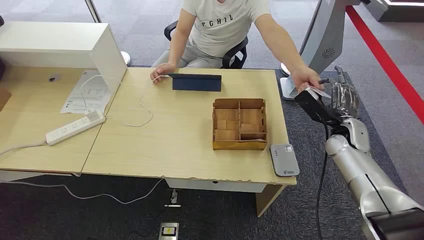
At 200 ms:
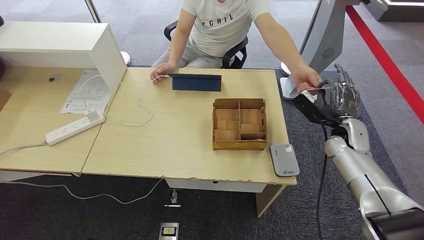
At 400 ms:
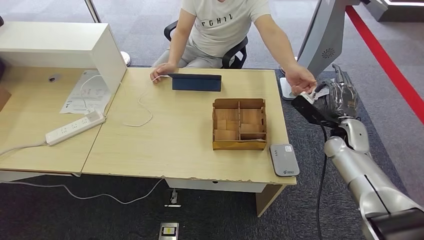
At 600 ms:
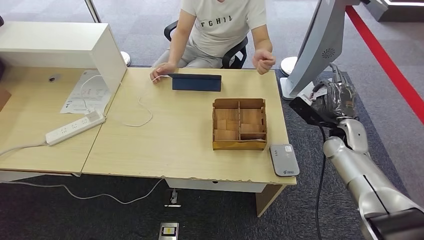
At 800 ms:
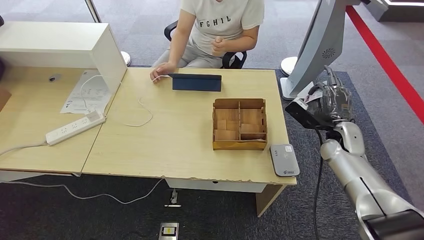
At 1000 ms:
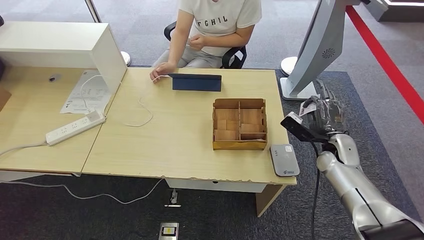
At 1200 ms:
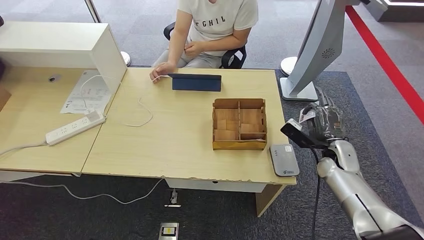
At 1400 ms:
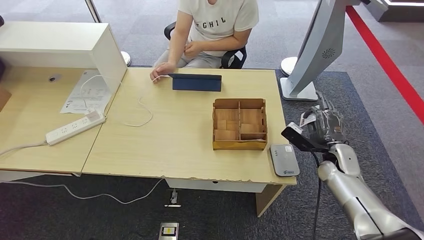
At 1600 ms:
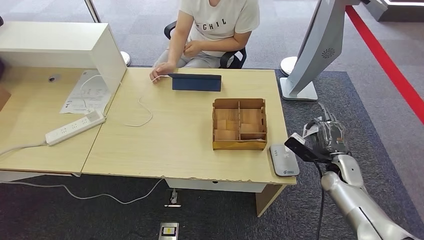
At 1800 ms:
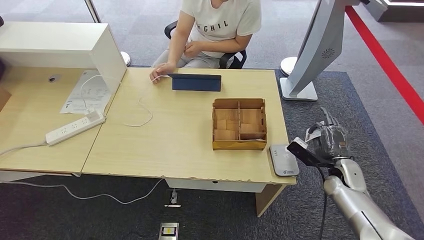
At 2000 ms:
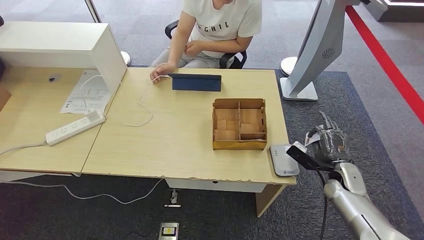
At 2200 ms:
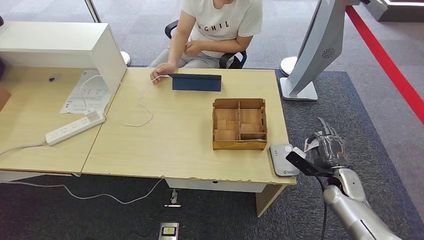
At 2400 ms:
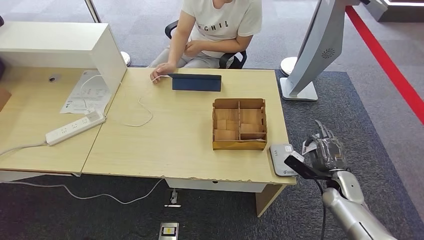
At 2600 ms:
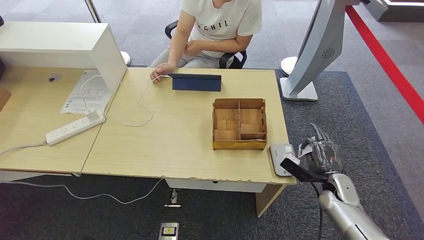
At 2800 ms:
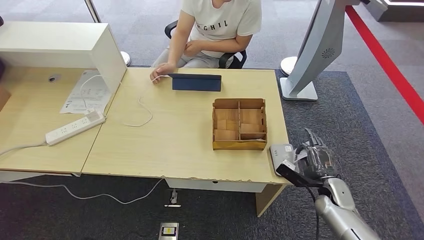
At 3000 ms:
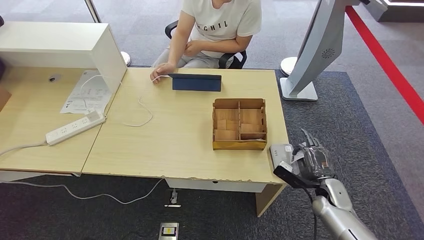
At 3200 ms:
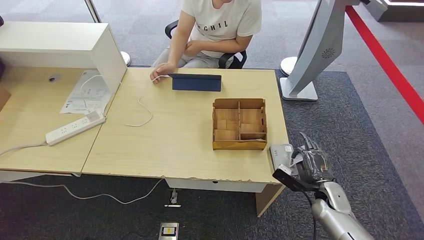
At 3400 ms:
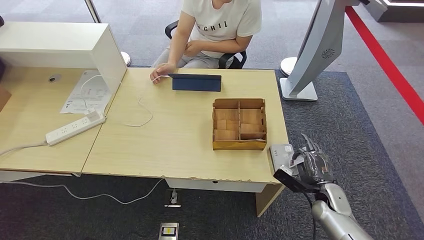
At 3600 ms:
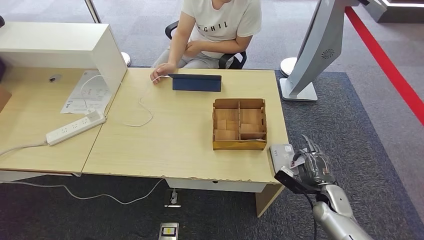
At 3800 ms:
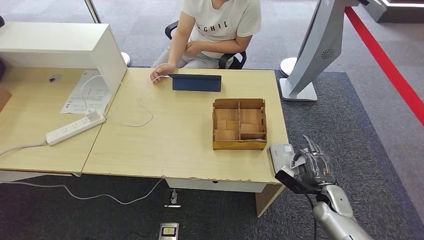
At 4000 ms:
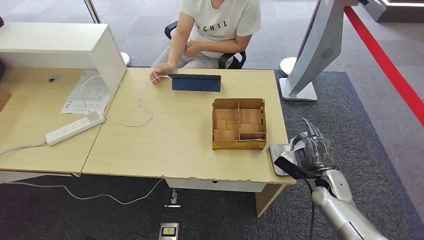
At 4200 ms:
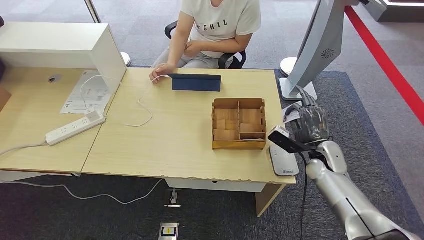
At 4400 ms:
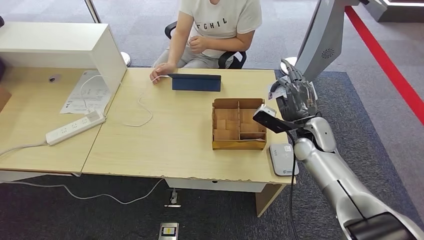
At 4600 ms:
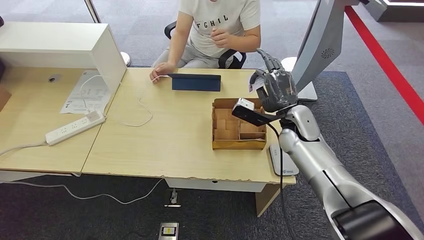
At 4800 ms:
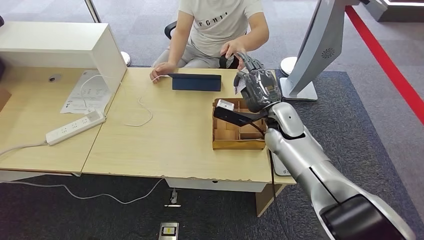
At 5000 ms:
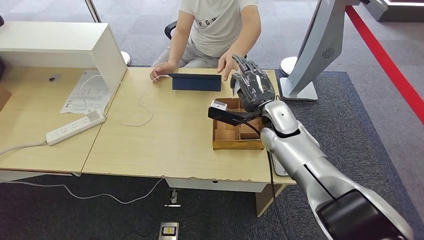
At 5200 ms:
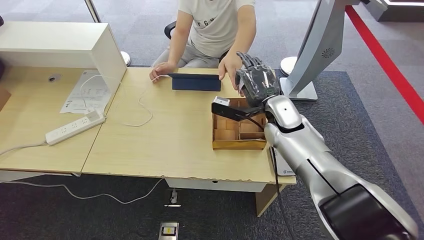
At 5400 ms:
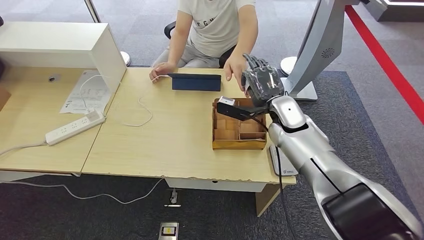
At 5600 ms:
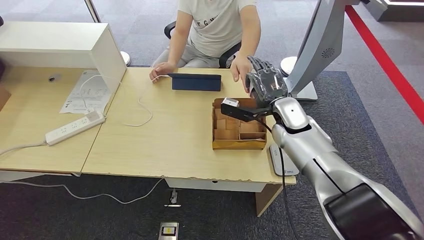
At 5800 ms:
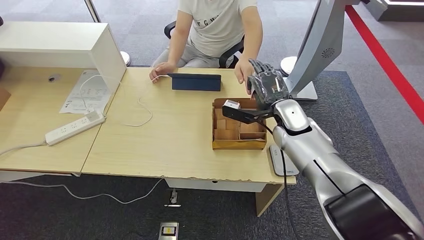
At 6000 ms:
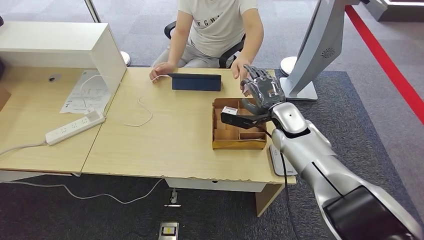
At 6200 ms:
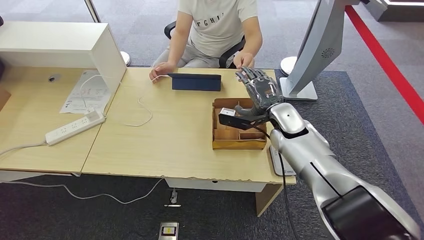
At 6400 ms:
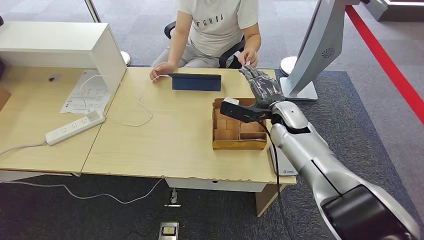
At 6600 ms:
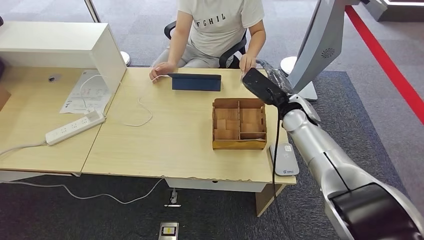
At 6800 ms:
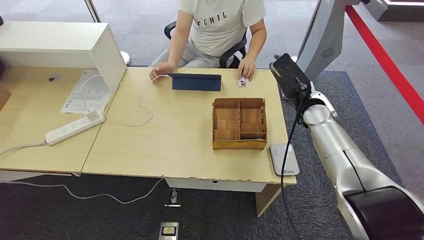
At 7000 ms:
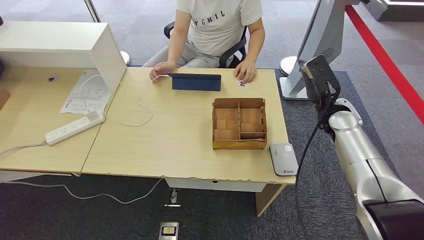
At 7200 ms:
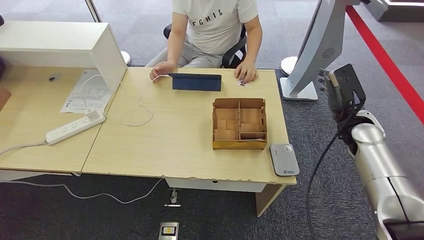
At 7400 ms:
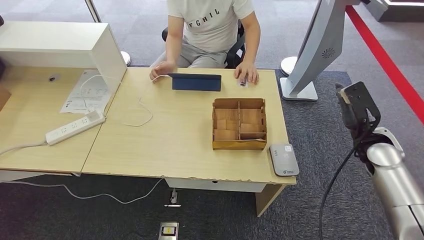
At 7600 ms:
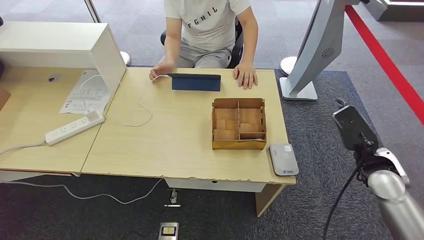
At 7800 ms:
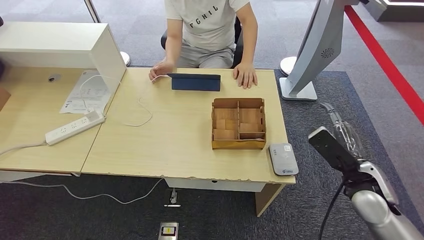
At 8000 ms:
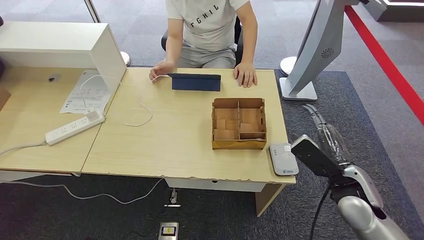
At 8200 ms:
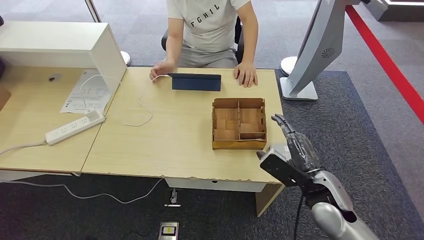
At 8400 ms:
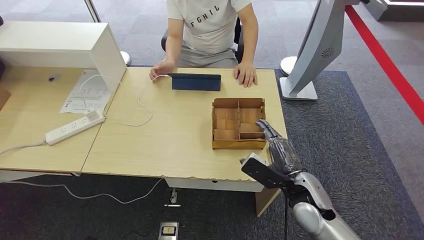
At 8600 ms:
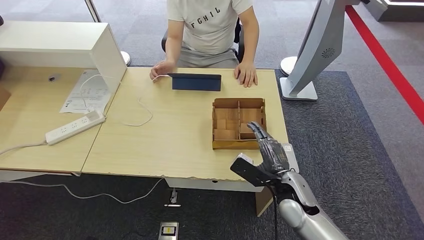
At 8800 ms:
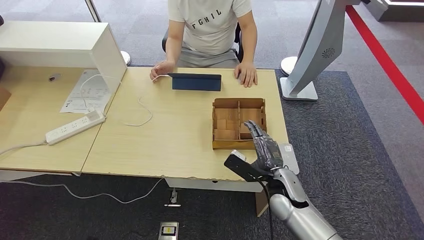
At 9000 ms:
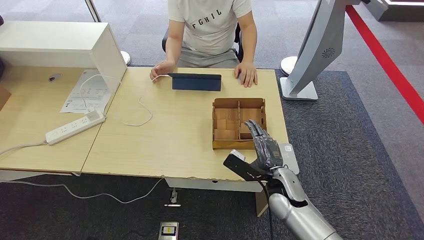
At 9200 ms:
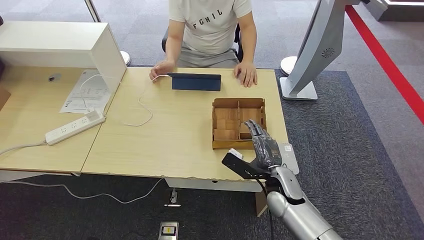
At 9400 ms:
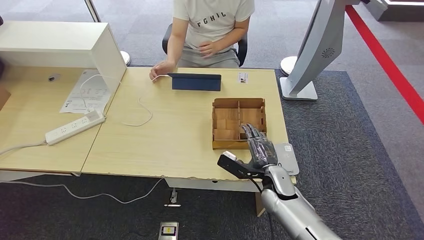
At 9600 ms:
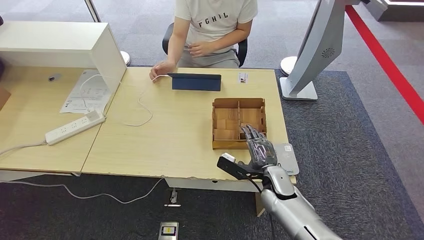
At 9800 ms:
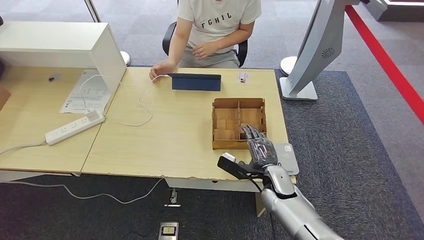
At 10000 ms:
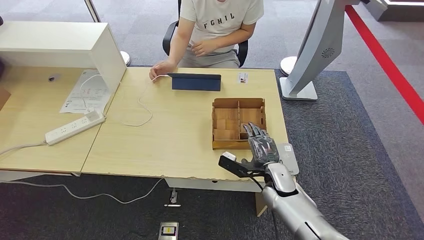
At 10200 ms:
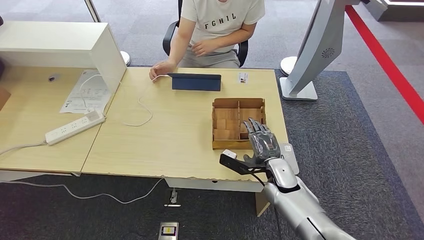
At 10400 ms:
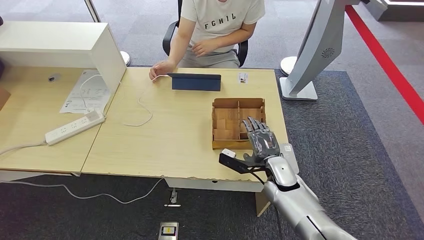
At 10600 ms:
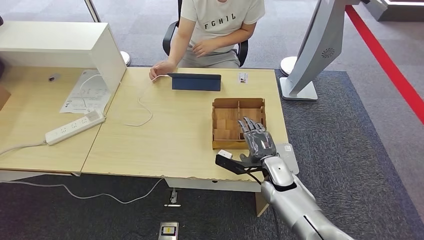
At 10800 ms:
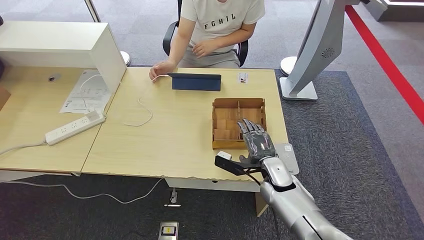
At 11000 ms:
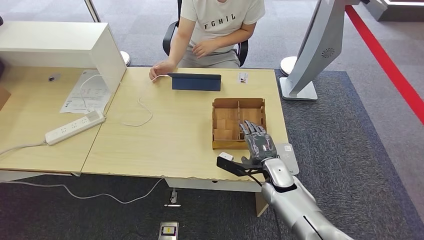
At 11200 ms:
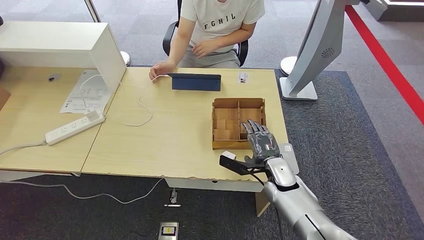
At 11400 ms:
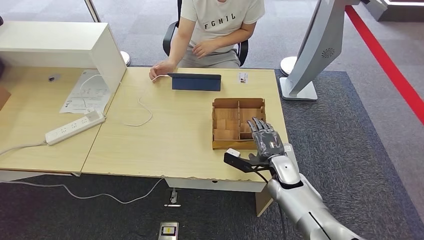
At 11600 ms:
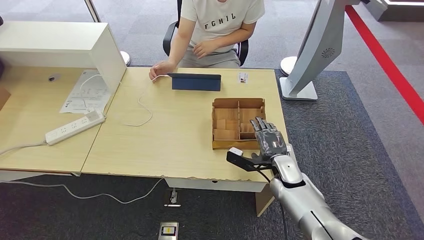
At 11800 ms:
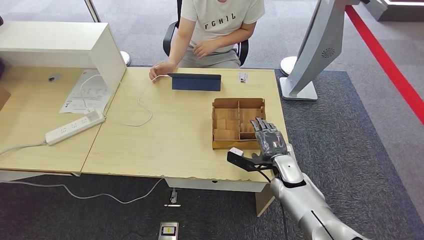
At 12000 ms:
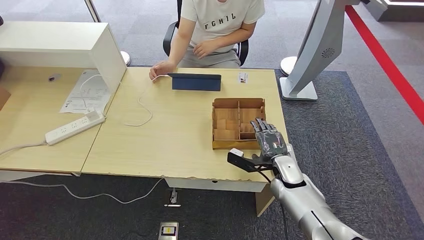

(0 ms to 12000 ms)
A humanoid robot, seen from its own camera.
Step, 0 ms - 1000 ms: Take the ID card from the person's hand.
Step, 1200 ms - 4400 ms: Place the ID card on the card reader.
Step, 4600 ms - 6600 ms: Hand the ID card to the person.
1600 ms - 3000 ms: The right hand moves downward and backward, some 10 cm.
3000 ms - 4400 ms: The right hand is displaced upward, forward and to the left by about 20 cm.
4400 ms - 6000 ms: The right hand goes about 5 cm to the left.
6000 ms - 7600 ms: The right hand shifts approximately 20 cm to the right and backward.
7600 ms - 9000 ms: The right hand heads to the left and downward, covering roughly 25 cm.
10400 ms - 12000 ms: The hands stay close to where they were, moving slightly.

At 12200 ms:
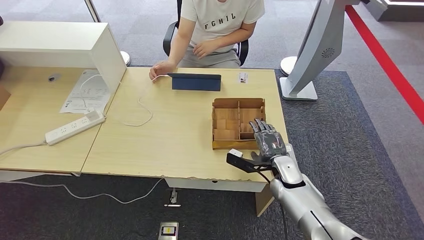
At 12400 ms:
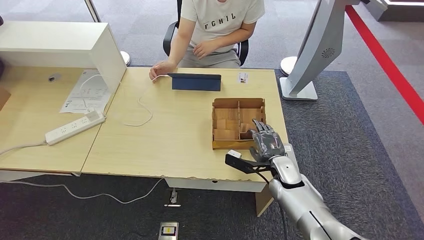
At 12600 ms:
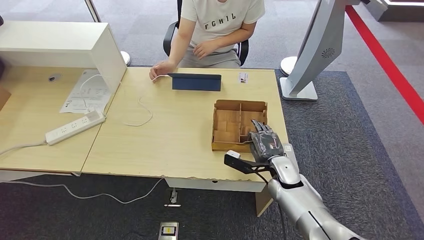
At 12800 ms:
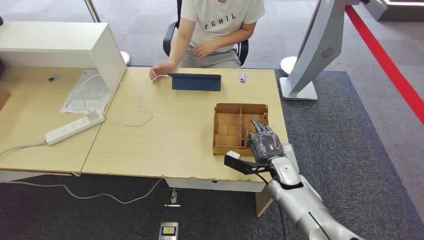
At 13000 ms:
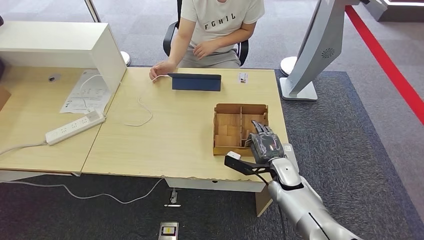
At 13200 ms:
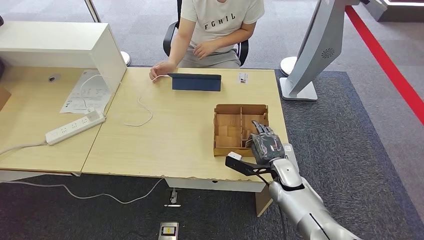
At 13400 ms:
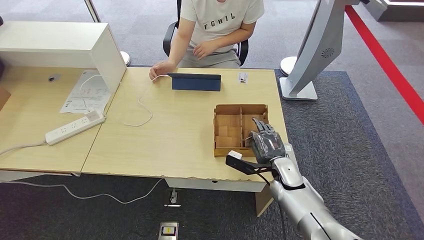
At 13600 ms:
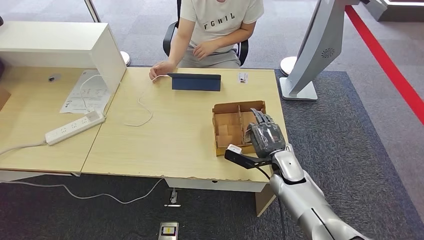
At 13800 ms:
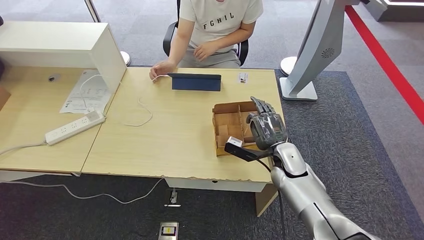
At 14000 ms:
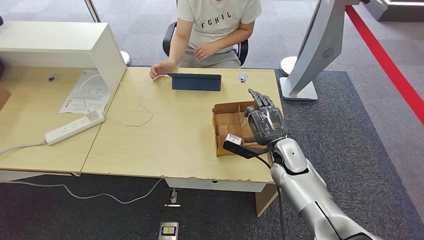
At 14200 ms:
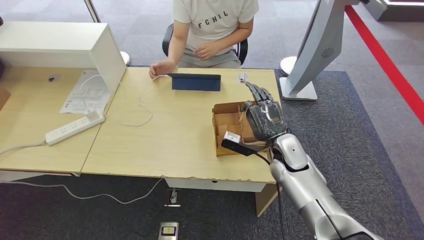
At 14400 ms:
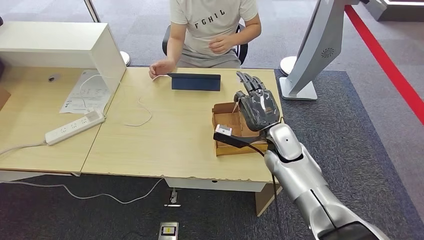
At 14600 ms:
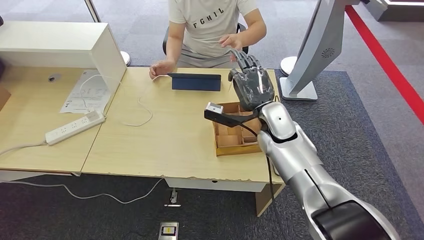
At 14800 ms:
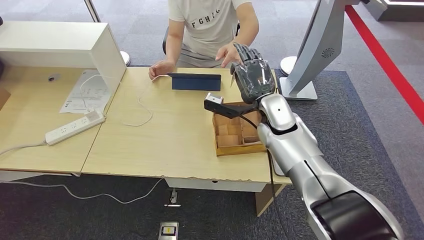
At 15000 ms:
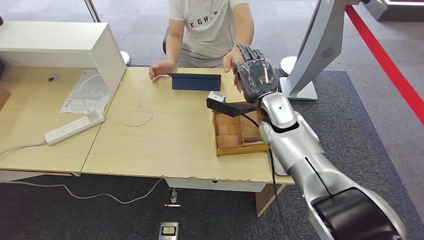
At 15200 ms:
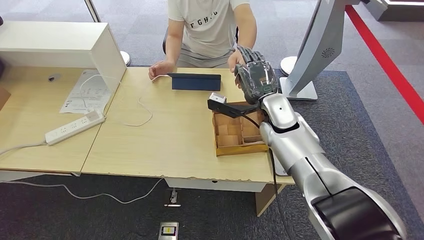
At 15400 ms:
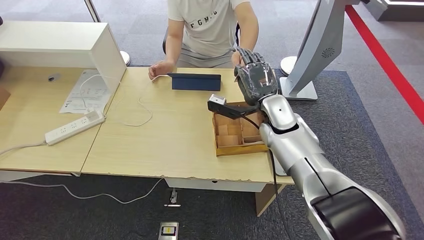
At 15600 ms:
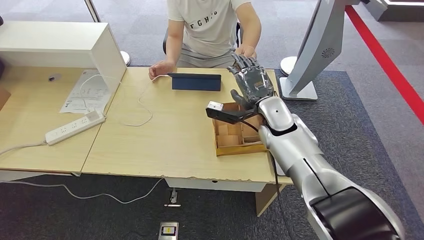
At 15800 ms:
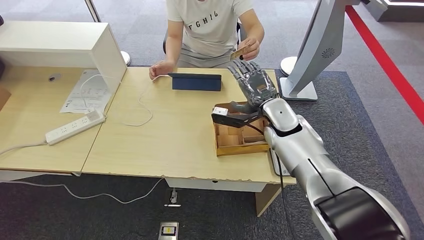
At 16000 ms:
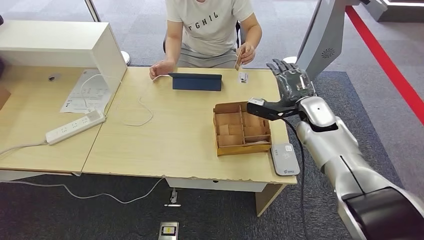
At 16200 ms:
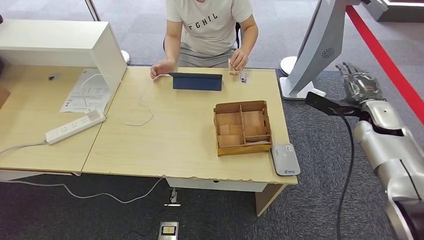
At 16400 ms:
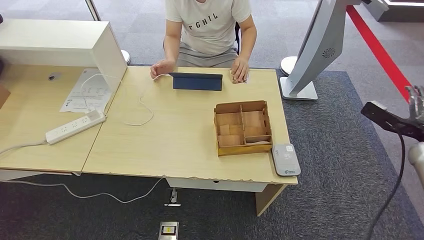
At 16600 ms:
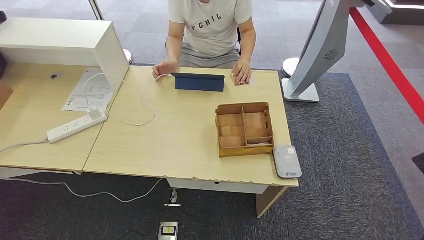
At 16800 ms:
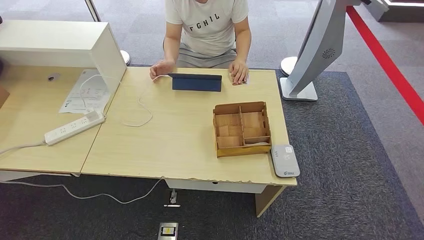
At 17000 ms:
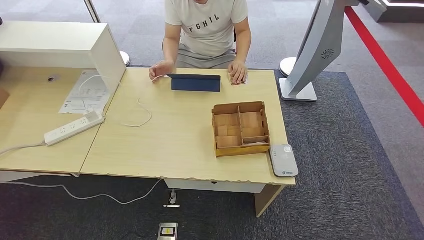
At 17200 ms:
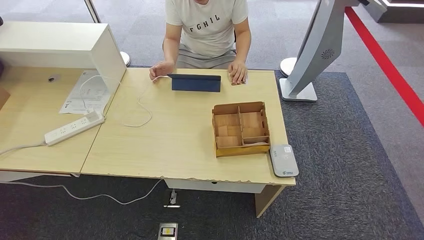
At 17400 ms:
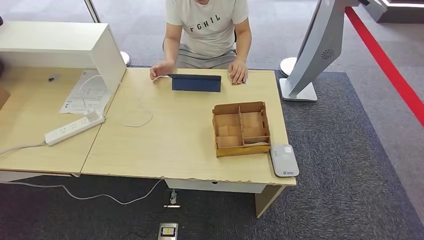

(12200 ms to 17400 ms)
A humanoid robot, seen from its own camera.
Step, 12200 ms - 14400 ms: Pick up the room key from the key card box.
Step, 14600 ms - 17200 ms: Hand the room key to the person.
12200 ms - 14000 ms: The right hand goes some 5 cm upward.
14000 ms - 15600 ms: The right hand shifts about 10 cm upward and forward.
15600 ms - 17400 ms: The right hand travels backward, downward and to the right by roughly 60 cm.
